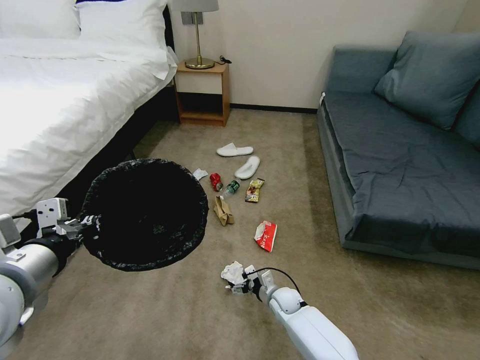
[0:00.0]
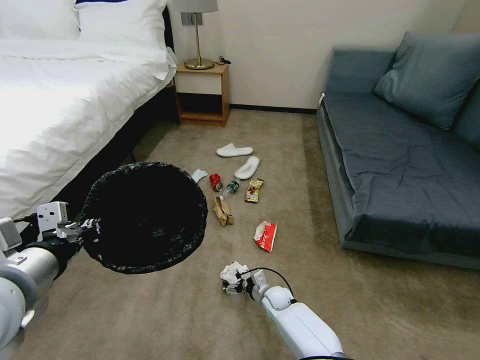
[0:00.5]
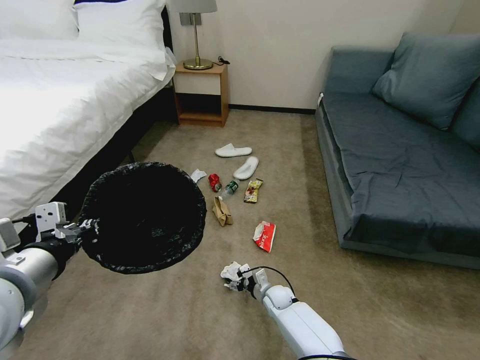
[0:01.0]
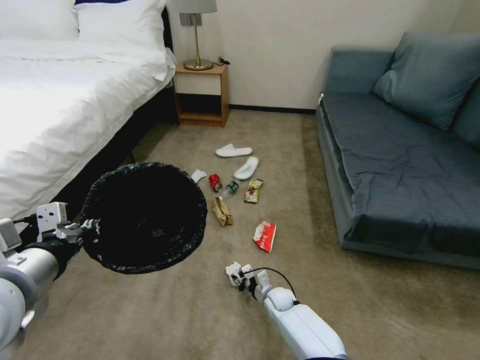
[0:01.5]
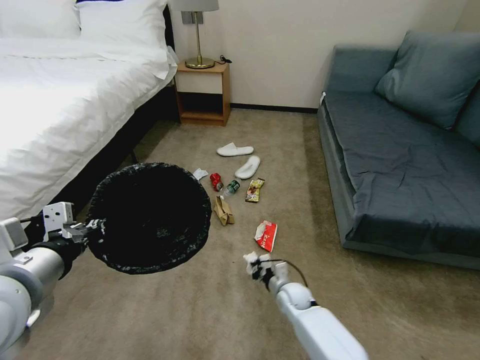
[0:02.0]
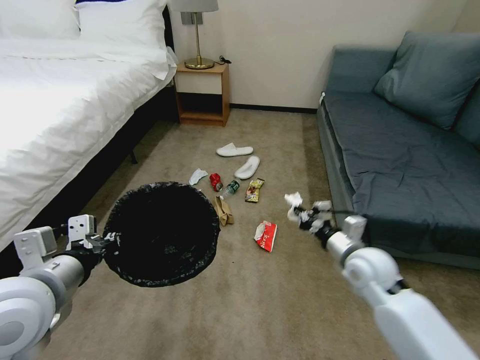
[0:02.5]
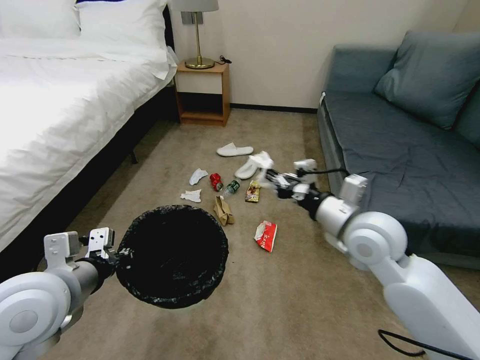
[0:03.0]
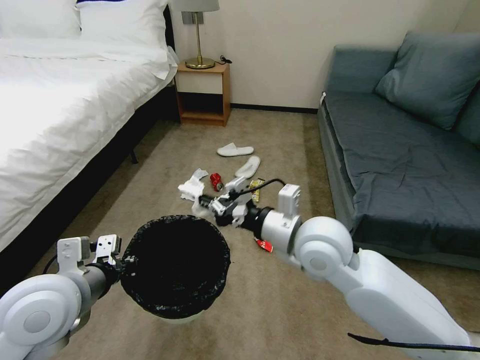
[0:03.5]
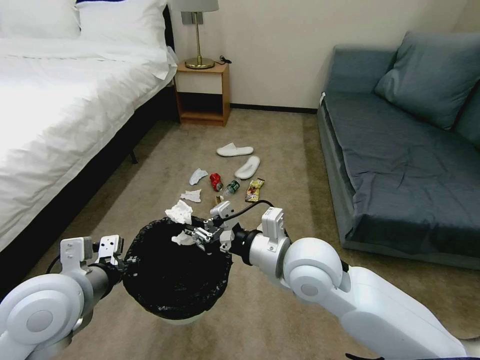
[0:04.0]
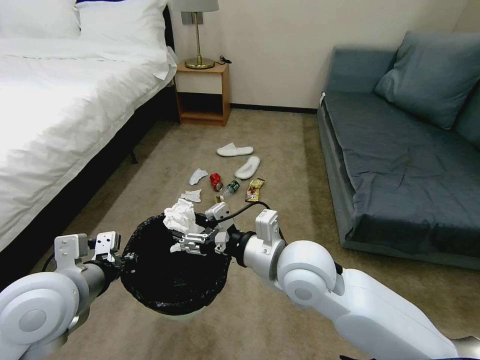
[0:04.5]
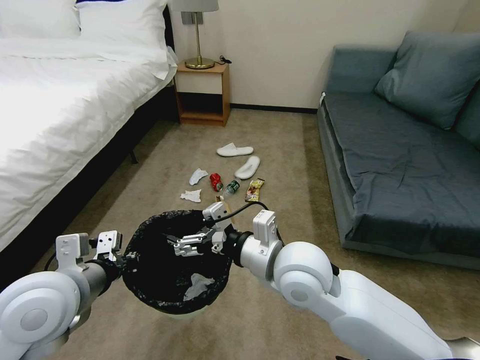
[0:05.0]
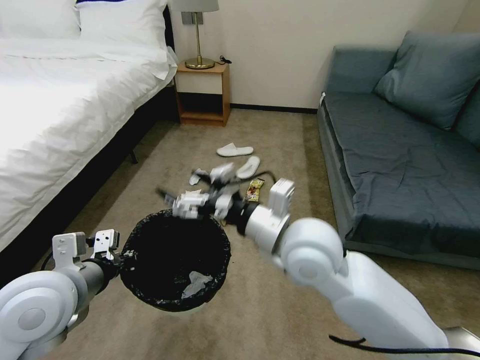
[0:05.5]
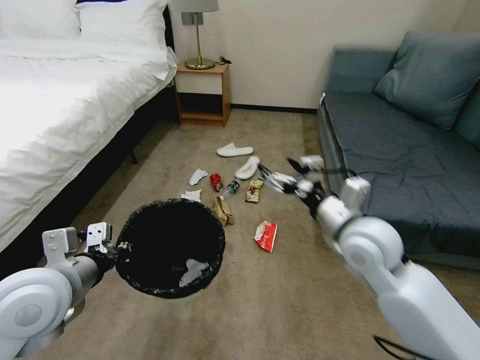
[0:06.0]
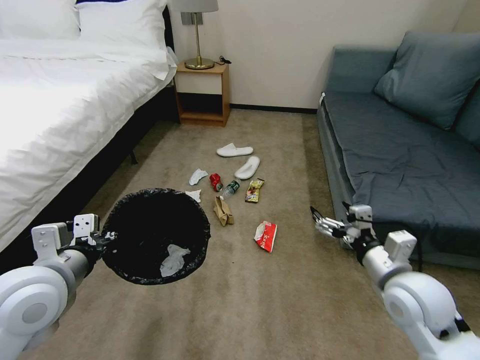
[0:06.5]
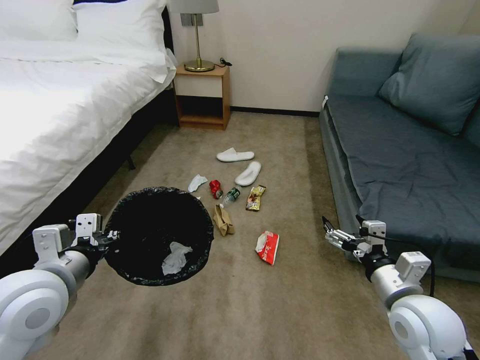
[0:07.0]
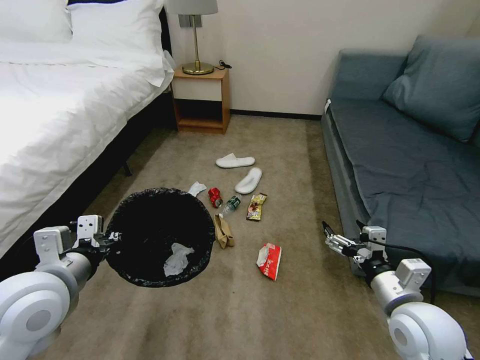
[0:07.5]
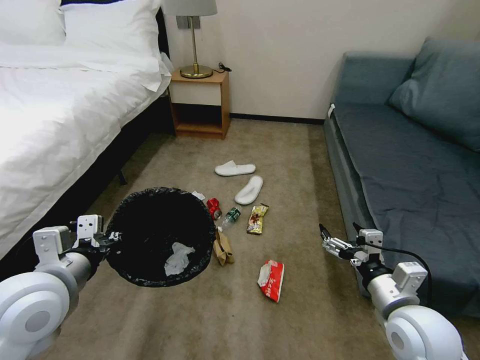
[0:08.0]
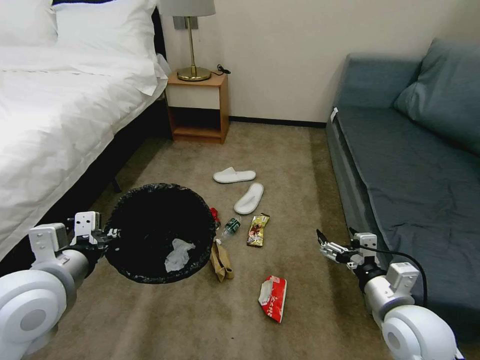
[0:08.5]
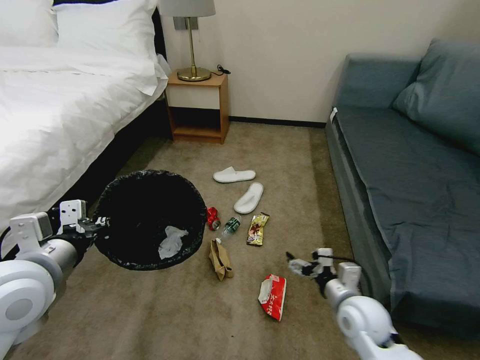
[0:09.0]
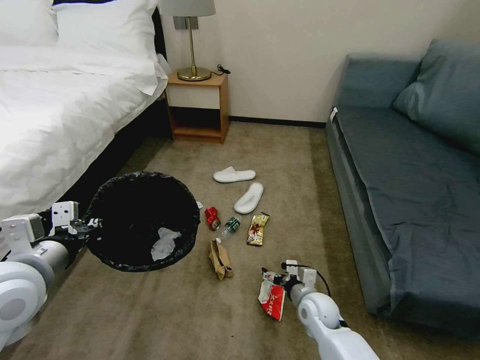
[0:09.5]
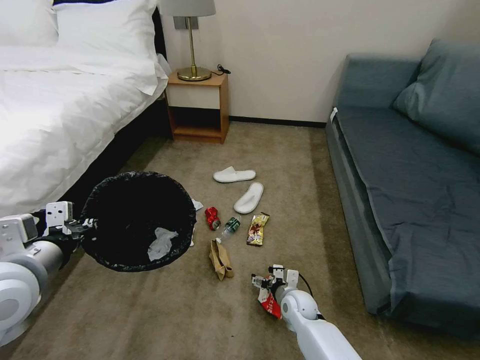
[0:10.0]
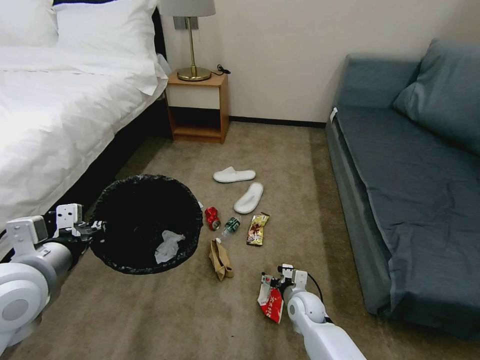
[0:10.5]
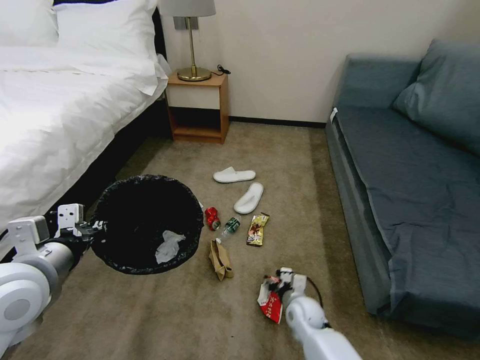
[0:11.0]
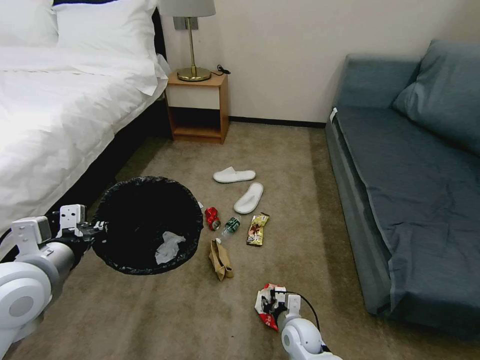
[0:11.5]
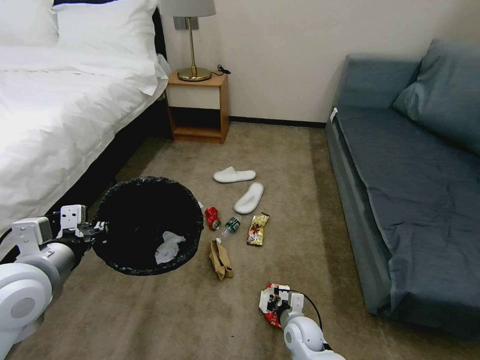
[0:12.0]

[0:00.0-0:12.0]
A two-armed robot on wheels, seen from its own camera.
Task of the whole recording: Pick up the trash bin, then pick up the garbage on the floor and place it into the trash bin.
0:00.0 to 0:02.0: The right gripper closes its fingers.
0:02.0 to 0:04.0: The left gripper is displaced downward by roughly 5 cm; the right gripper moves upward, approximately 35 cm.
0:04.0 to 0:06.0: The right gripper travels to the right by approximately 10 cm, and opens its fingers.
0:06.0 to 0:08.0: The right gripper is displaced backward, downward and to the right by some 15 cm.
0:08.0 to 0:10.0: The right gripper moves downward, to the left and forward, approximately 30 cm.
0:10.0 to 0:12.0: The right gripper is displaced backward by roughly 5 cm, and closes up.

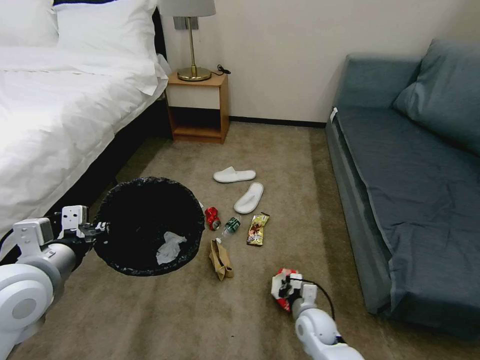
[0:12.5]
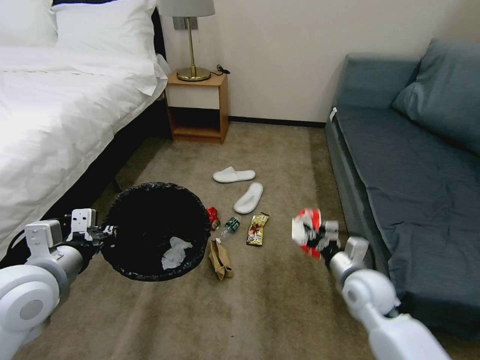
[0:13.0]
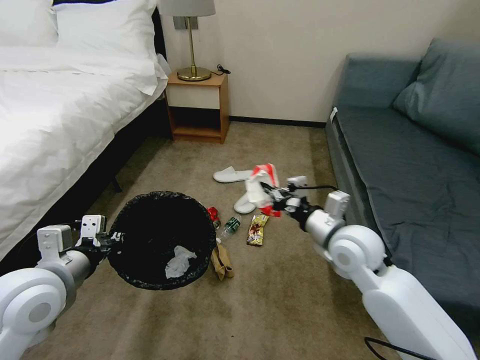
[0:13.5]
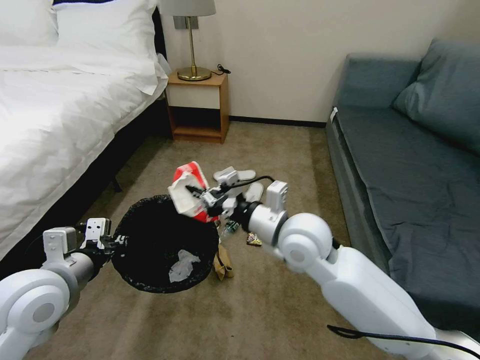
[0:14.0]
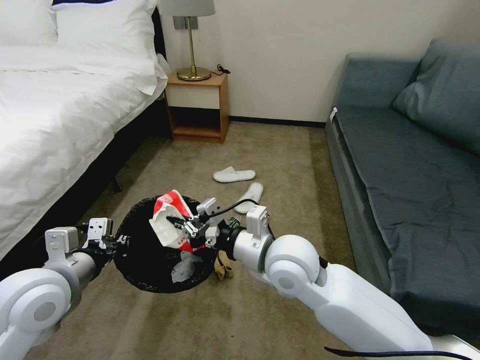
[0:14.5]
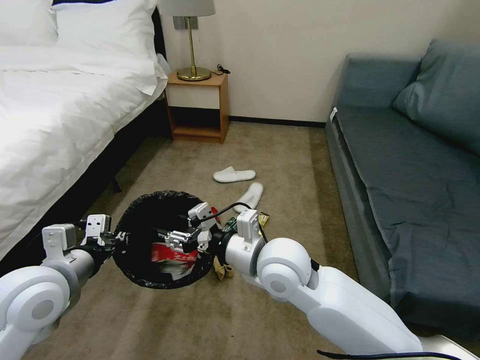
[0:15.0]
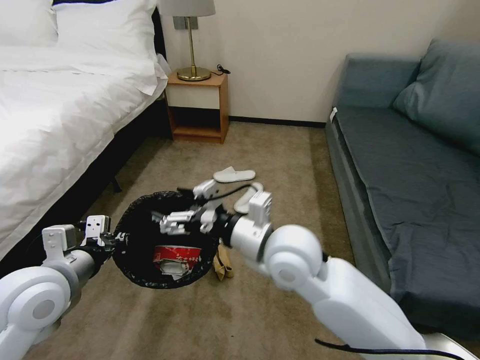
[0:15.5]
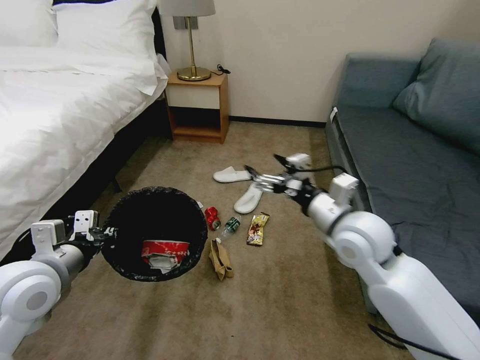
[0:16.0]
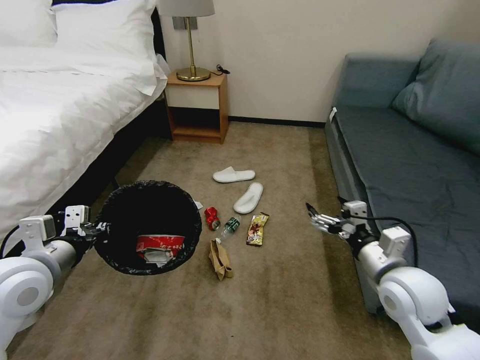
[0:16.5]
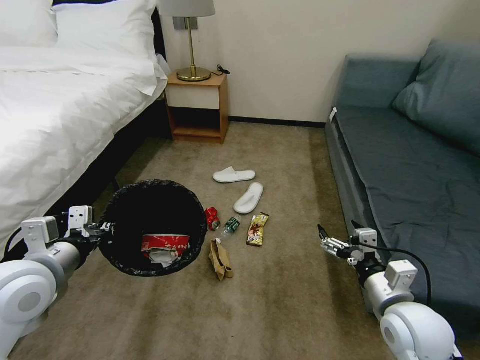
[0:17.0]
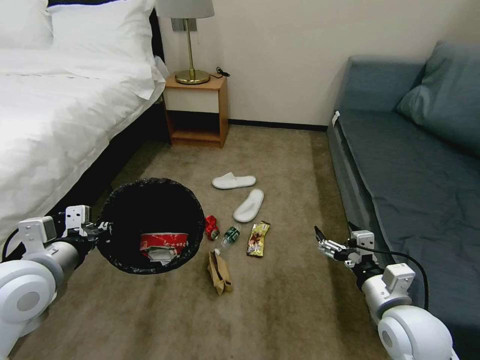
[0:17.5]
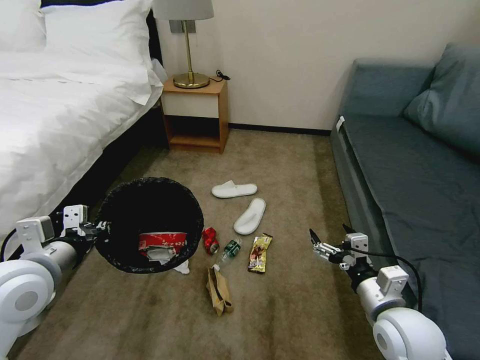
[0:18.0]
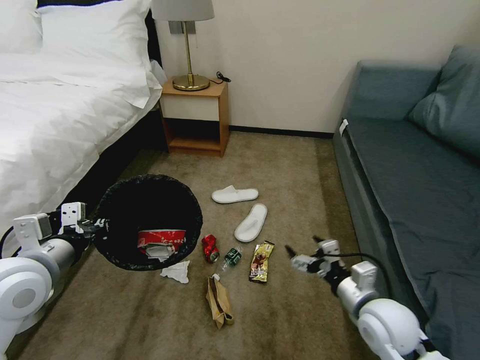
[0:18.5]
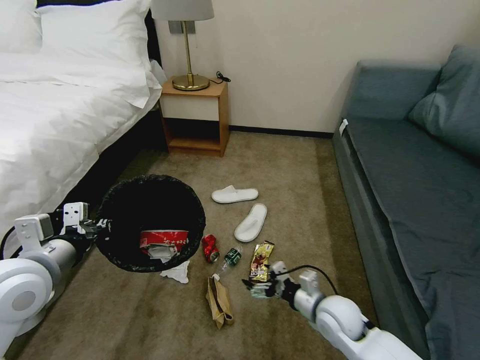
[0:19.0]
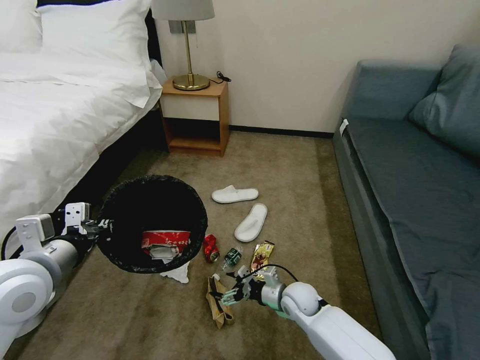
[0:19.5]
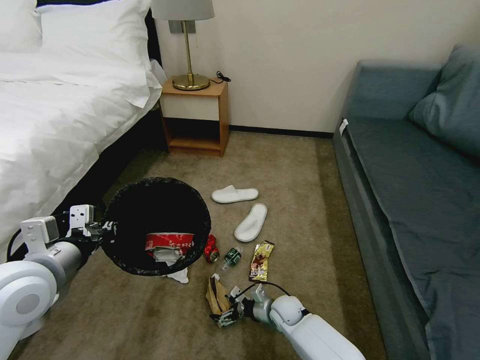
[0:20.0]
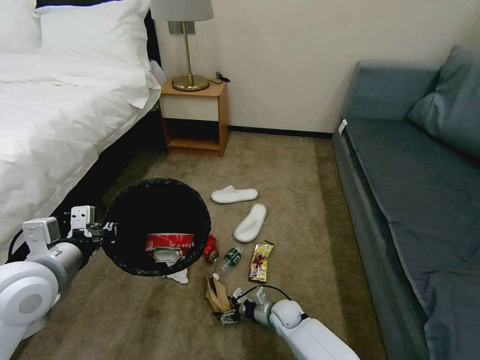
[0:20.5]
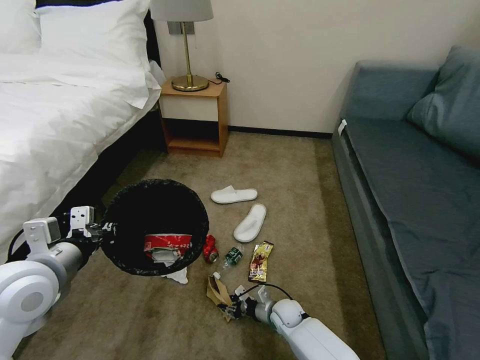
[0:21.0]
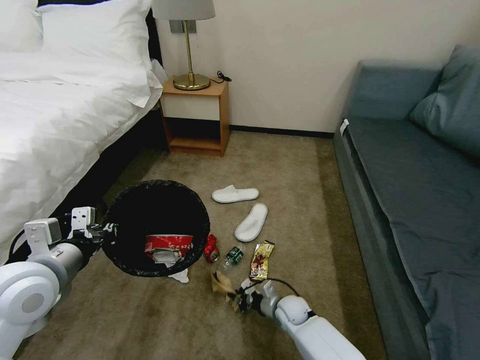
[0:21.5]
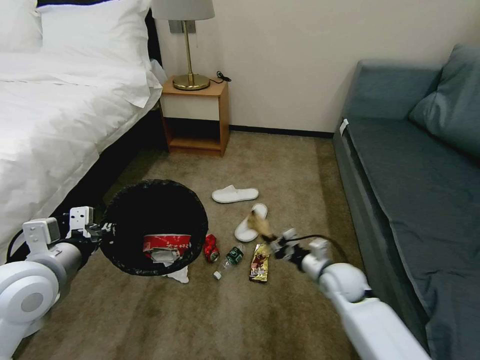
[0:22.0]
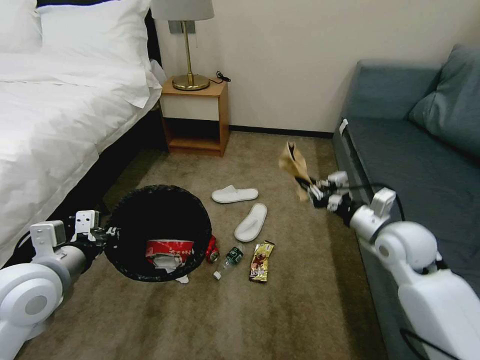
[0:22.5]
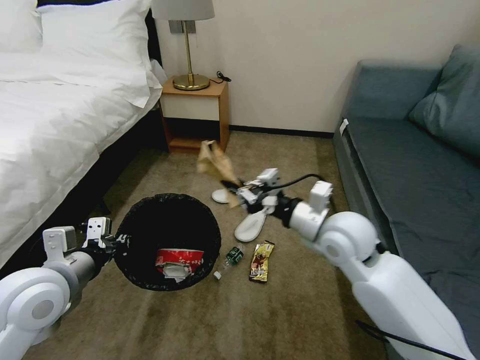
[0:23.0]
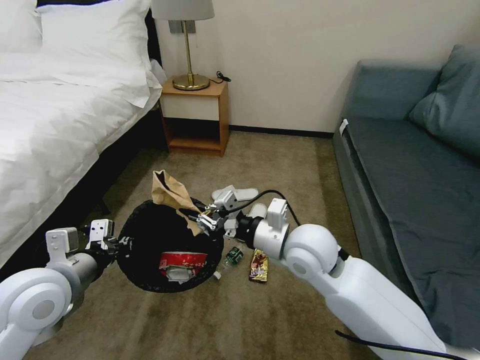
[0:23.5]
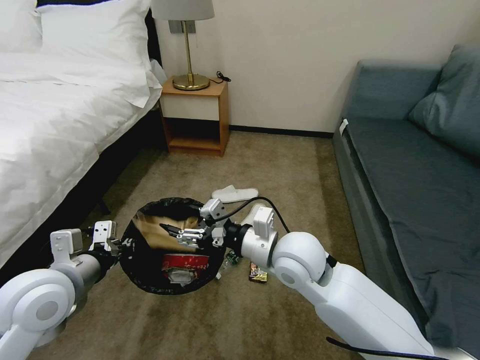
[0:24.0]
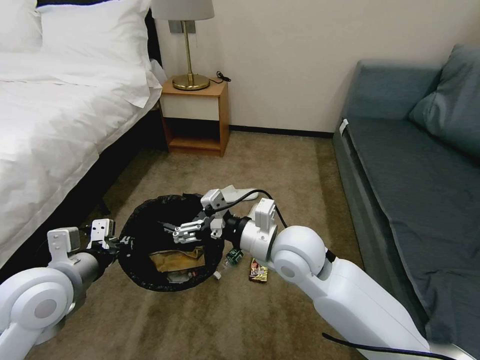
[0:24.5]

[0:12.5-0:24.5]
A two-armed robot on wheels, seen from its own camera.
Task of the whole recording: Pick up the trash bin, then pick up the garbage on the floor and place it into the trash bin.
0:12.5 to 0:14.5: The right gripper shifts roughly 30 cm upward.
0:14.5 to 0:16.5: The right gripper is displaced to the right by some 20 cm, and opens its fingers.
0:16.5 to 0:18.5: The right gripper travels downward by some 5 cm.
0:18.5 to 0:20.5: The right gripper travels downward and to the left by about 30 cm.
0:20.5 to 0:22.5: The right gripper moves upward and to the right, about 40 cm, and closes up.
0:22.5 to 0:24.5: The right gripper moves to the left, about 20 cm, and opens.

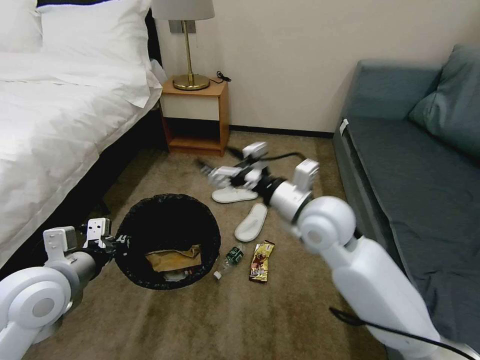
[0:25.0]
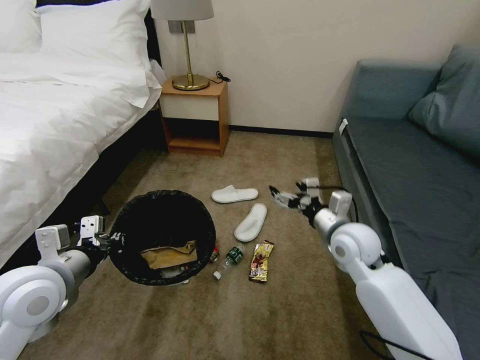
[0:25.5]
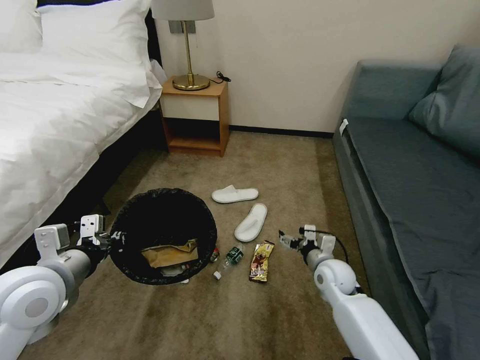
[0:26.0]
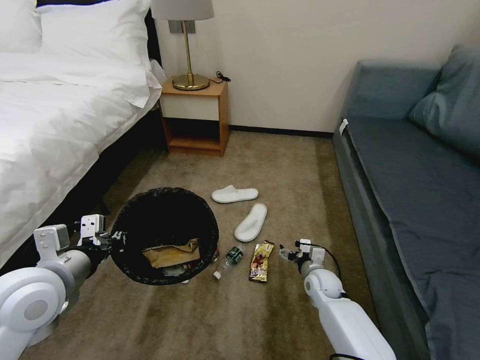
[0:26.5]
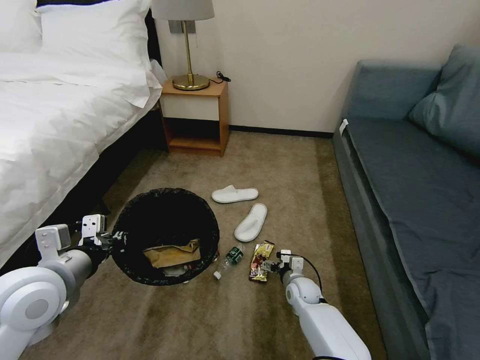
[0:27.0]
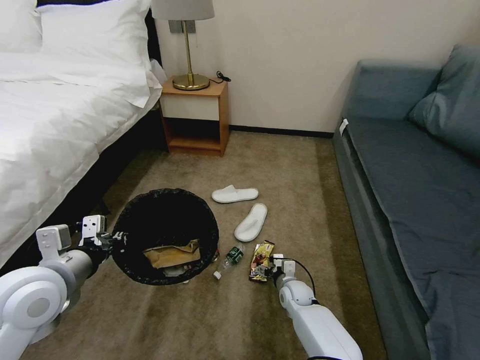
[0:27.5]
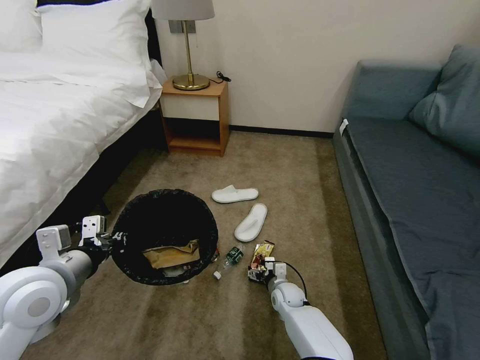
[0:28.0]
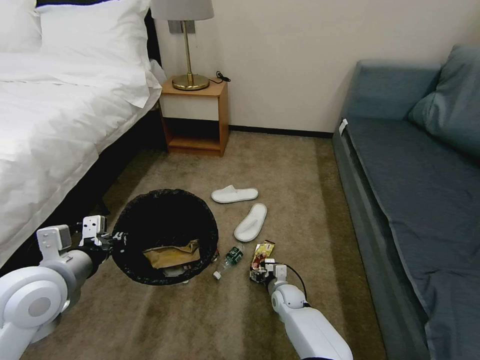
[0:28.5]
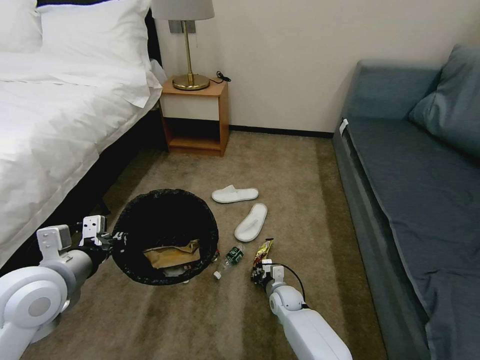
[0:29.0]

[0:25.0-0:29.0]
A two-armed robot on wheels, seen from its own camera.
Task of the whole recording: Pick up the trash bin, then pick up the garbage on the floor and place it into the trash bin.
0:25.0 to 0:27.0: The right gripper travels downward by roughly 40 cm.
0:27.0 to 0:29.0: The right gripper heads to the left, covering about 5 cm, and closes.
